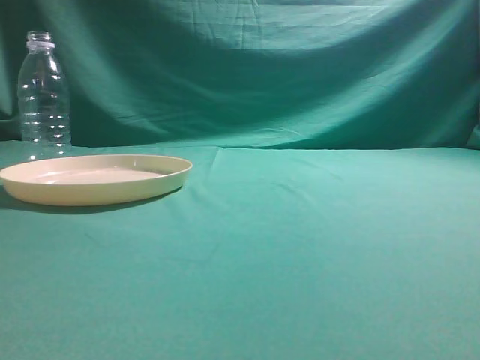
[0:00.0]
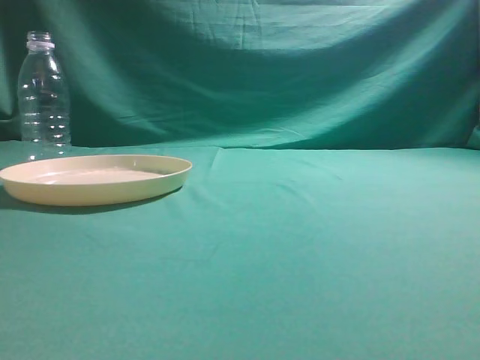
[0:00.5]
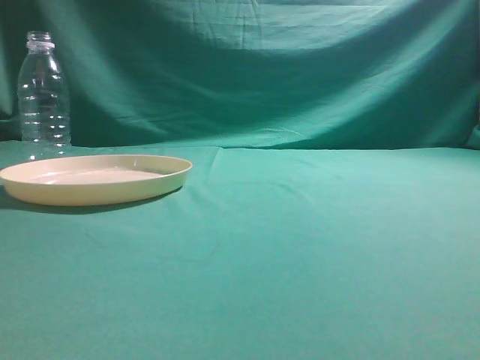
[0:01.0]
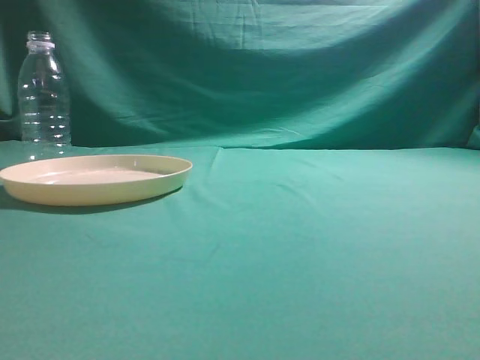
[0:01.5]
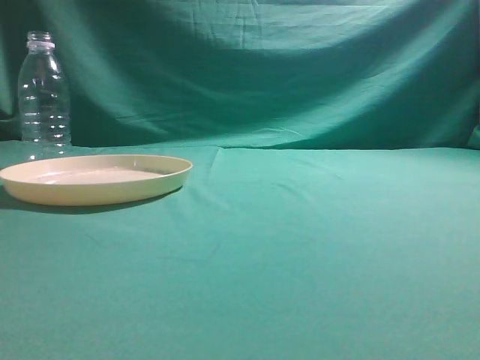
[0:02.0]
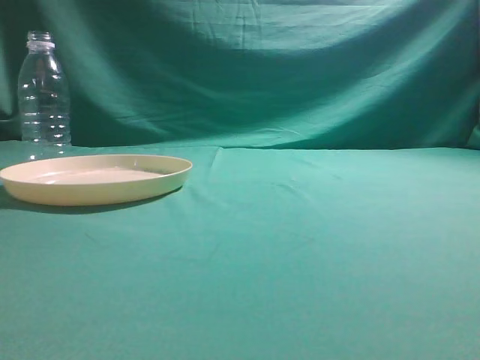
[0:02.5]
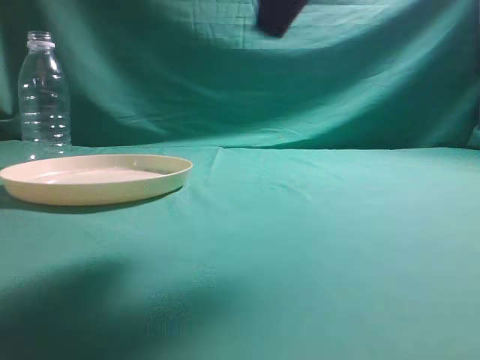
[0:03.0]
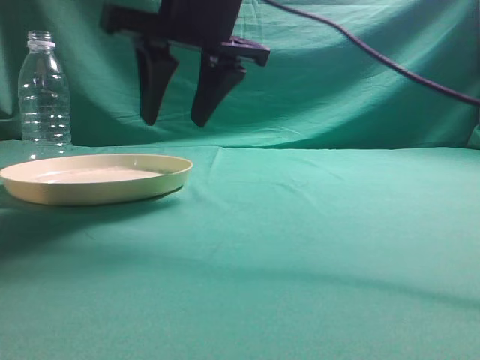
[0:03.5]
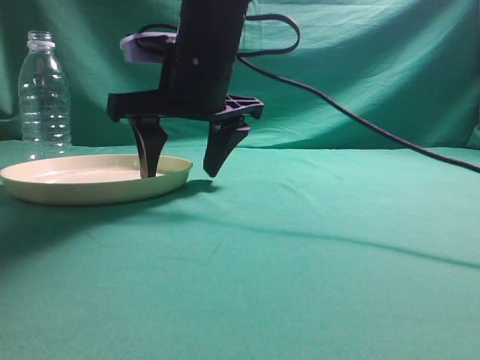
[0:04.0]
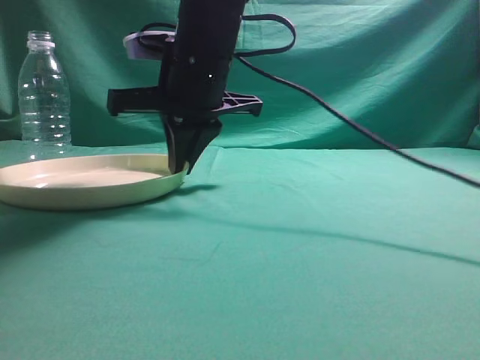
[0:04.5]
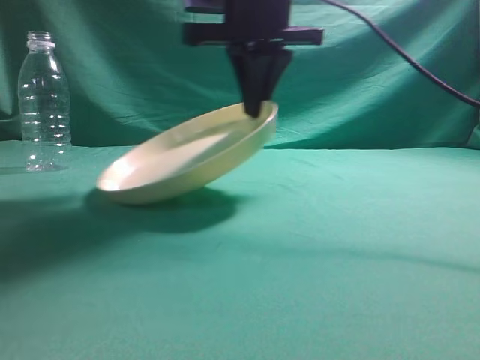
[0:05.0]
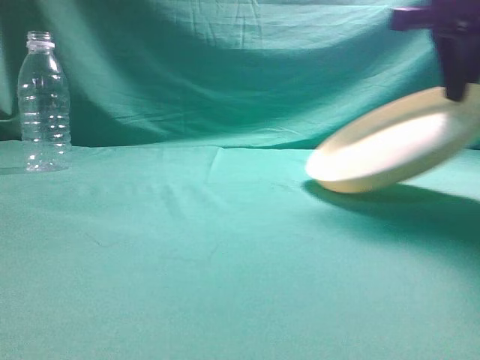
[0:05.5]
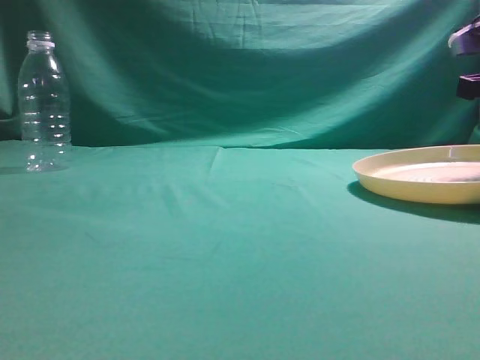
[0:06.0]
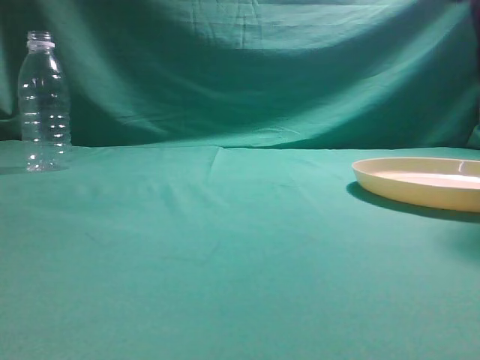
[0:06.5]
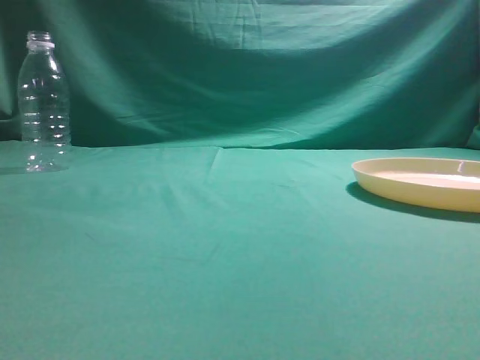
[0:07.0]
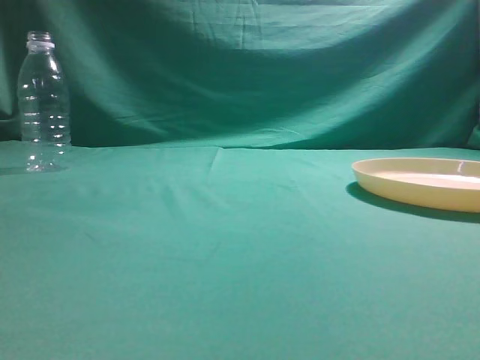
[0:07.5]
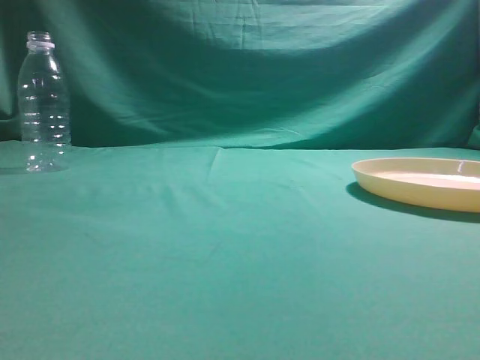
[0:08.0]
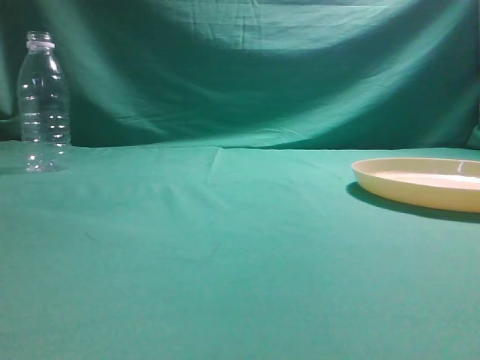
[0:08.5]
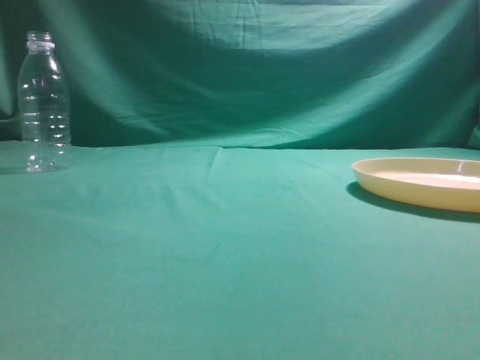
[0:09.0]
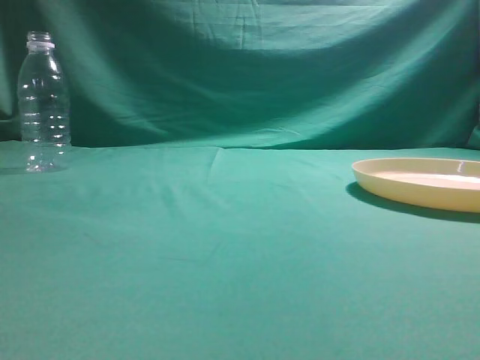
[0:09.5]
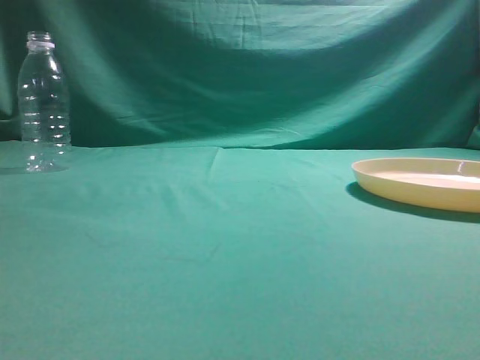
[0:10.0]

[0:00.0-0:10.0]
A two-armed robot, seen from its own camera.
Step, 0:00.0 to 0:04.5: Pick the container that can hold fruits.
Step, 0:05.0 to 0:06.0: Move the picked object to the right side of the table.
0:02.0 to 0:04.0: The right gripper travels to the left, forward and downward by approximately 40 cm, and opens up.
0:04.0 to 0:06.0: The right gripper moves to the right, some 30 cm, and closes up.
0:06.0 to 0:08.0: The right gripper heads backward and upward, covering approximately 40 cm, and opens, then closes once more.
